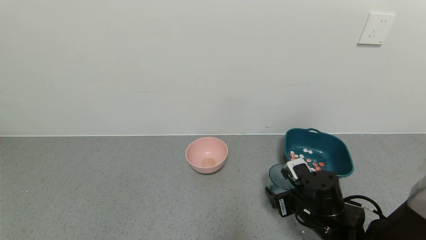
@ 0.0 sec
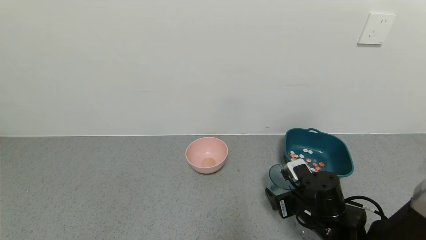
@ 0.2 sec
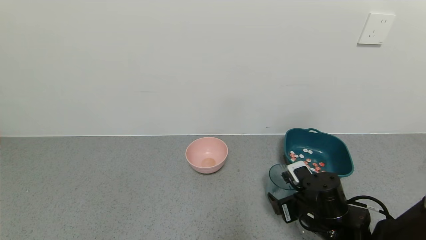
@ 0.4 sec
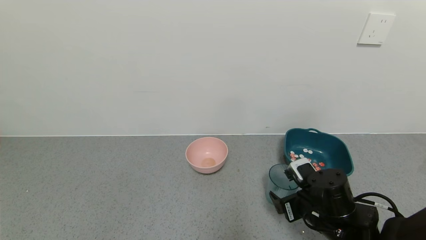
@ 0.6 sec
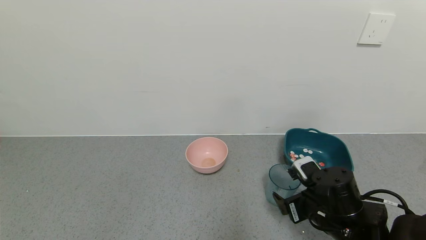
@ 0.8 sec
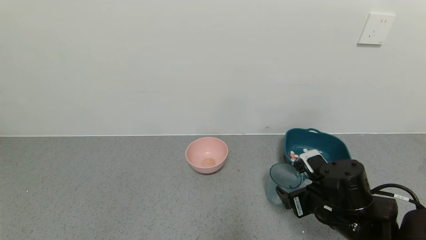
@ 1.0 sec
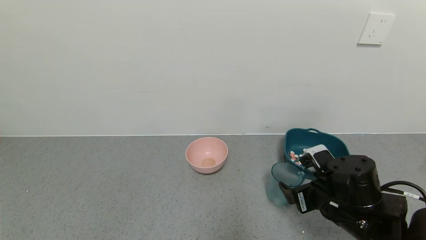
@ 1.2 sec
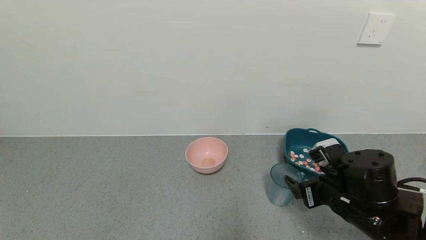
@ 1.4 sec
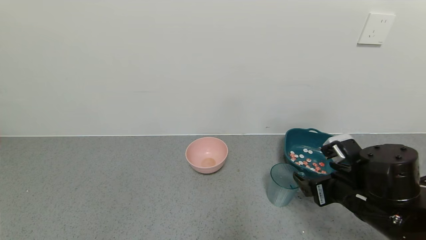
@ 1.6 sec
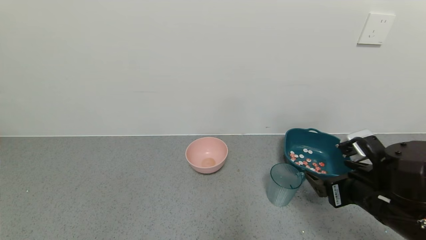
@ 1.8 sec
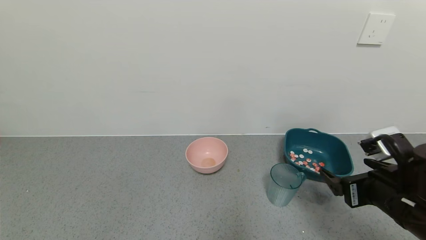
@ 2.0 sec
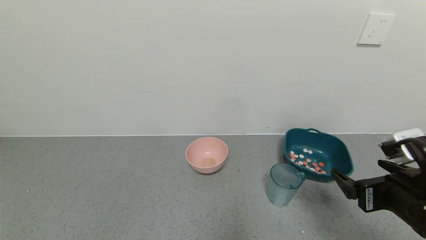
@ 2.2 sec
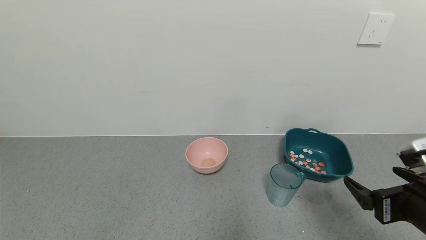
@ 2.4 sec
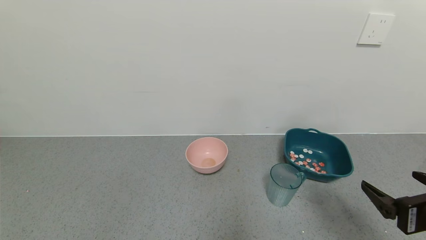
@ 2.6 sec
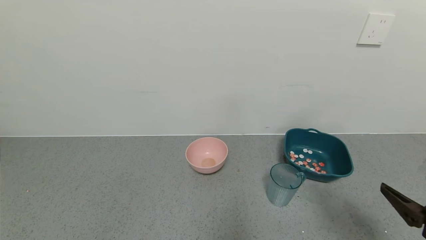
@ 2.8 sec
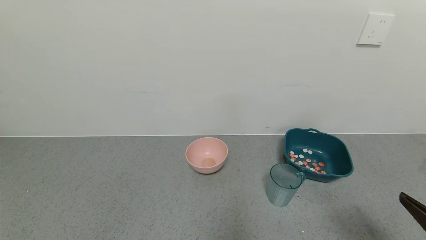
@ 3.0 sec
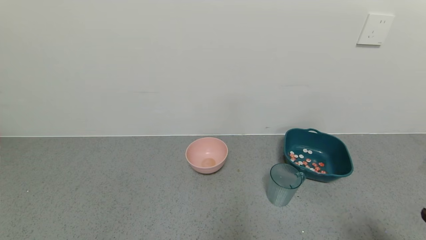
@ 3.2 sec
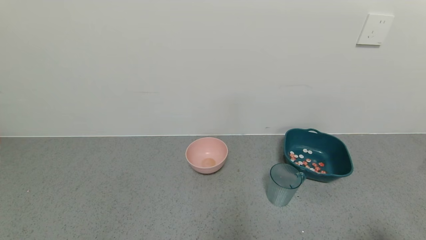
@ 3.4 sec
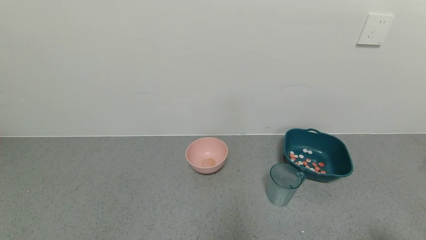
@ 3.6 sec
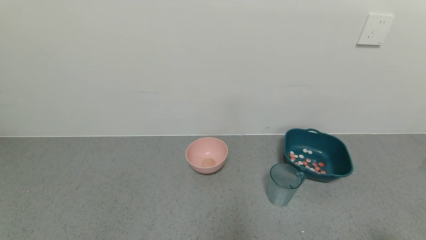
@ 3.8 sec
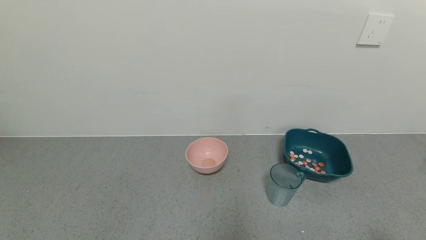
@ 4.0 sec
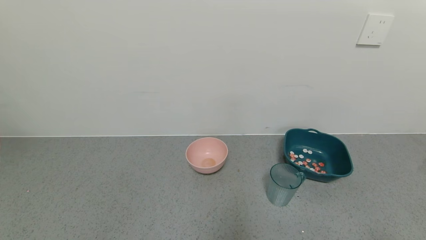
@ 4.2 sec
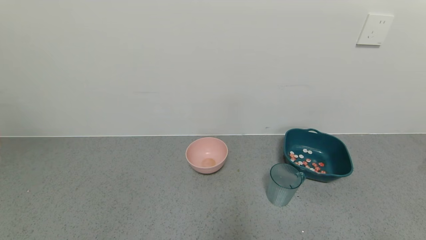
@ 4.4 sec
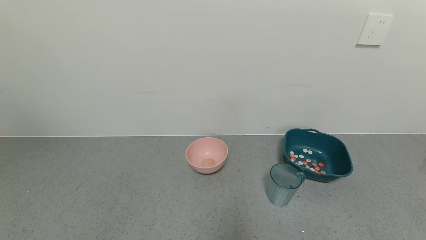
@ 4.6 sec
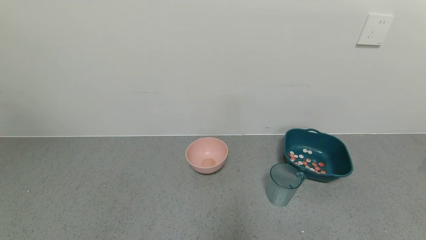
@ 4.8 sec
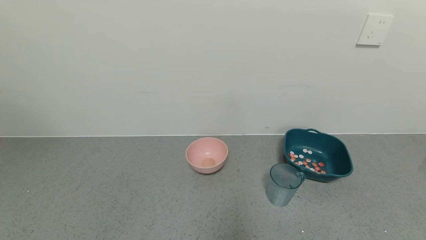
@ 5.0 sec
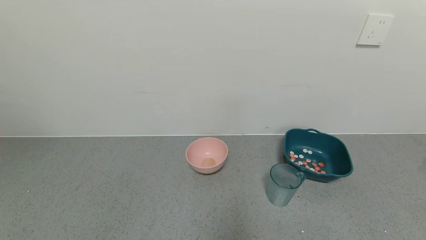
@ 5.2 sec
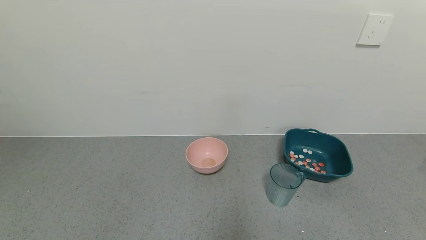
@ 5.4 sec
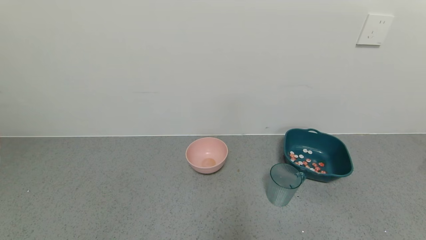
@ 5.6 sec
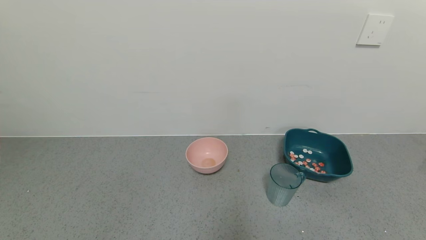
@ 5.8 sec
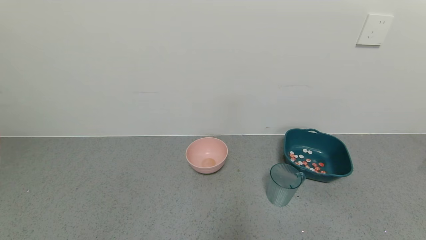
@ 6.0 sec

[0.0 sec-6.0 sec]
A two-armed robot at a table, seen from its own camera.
Task of the whole recording: use a gripper to pick up the cup and pour the solid into a bowl or tray.
0.0 sec to 1.6 sec: The right gripper goes some 10 cm upward.
1.6 sec to 3.0 sec: The right gripper travels backward and to the right by some 15 cm.
3.0 sec to 4.4 sec: The right gripper goes some 10 cm backward.

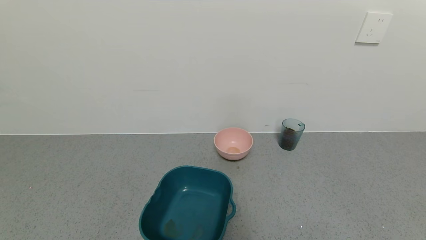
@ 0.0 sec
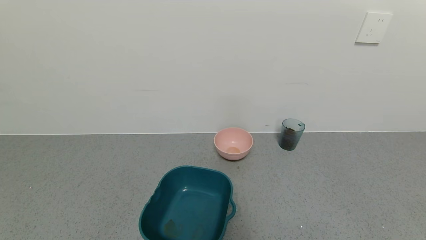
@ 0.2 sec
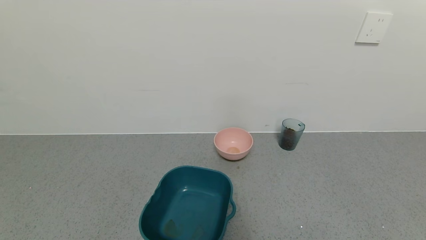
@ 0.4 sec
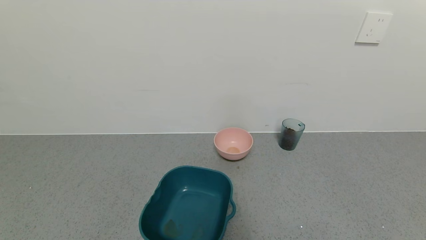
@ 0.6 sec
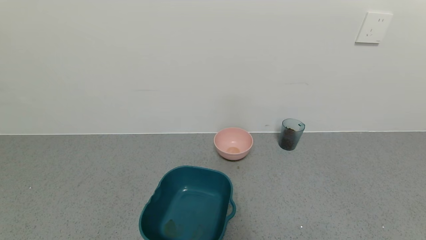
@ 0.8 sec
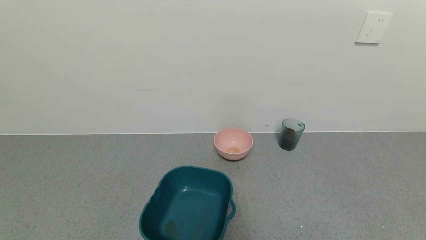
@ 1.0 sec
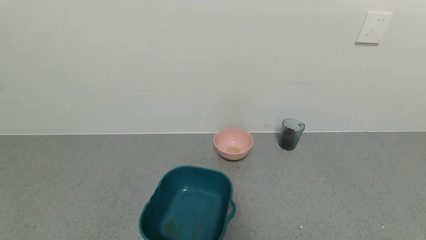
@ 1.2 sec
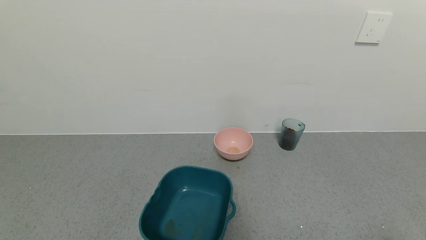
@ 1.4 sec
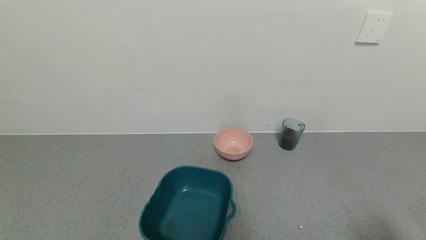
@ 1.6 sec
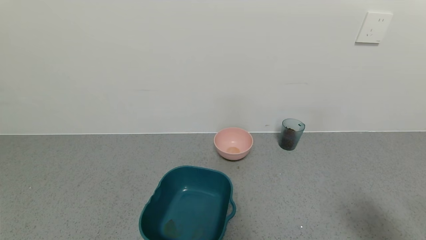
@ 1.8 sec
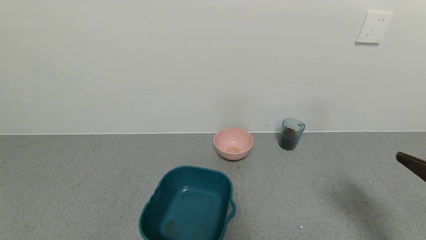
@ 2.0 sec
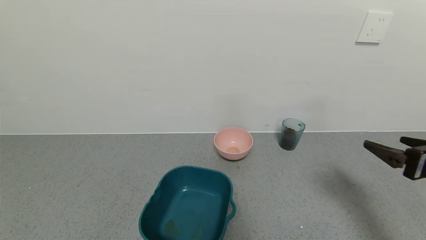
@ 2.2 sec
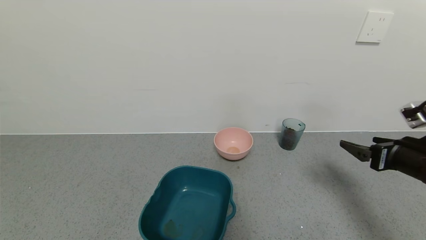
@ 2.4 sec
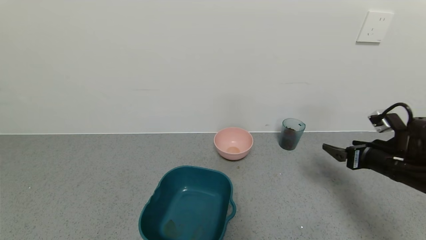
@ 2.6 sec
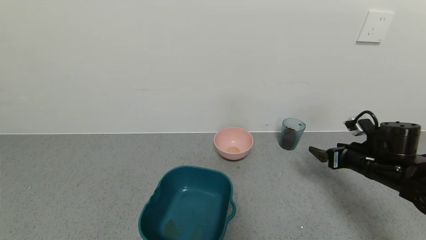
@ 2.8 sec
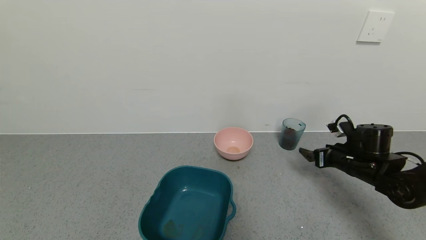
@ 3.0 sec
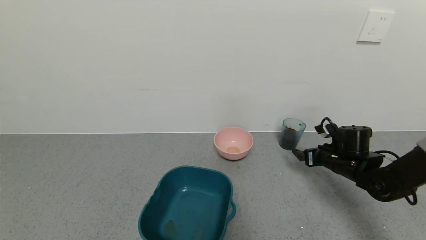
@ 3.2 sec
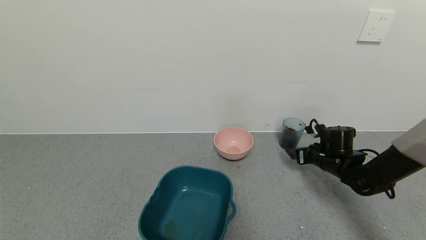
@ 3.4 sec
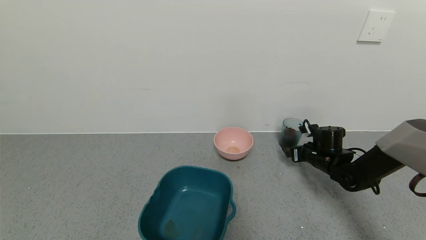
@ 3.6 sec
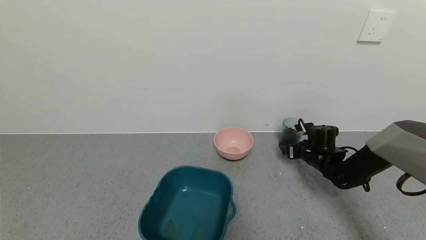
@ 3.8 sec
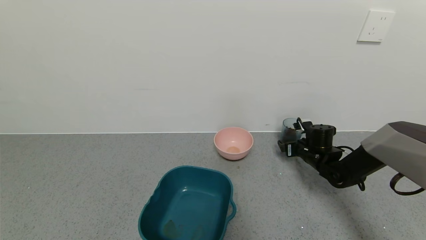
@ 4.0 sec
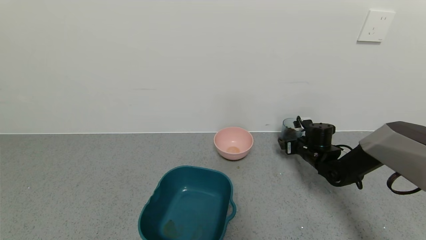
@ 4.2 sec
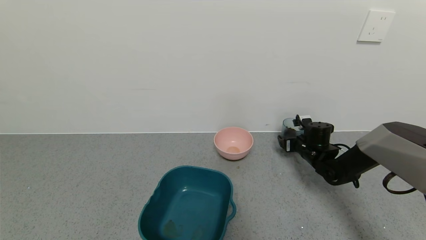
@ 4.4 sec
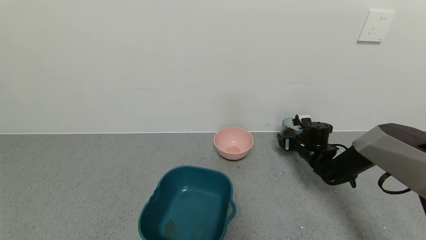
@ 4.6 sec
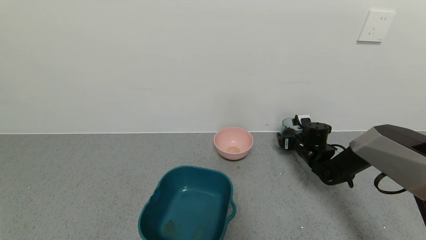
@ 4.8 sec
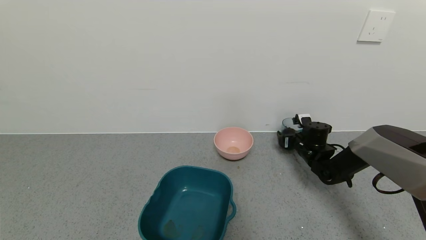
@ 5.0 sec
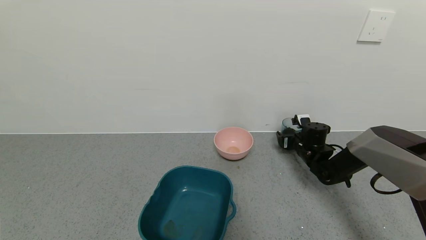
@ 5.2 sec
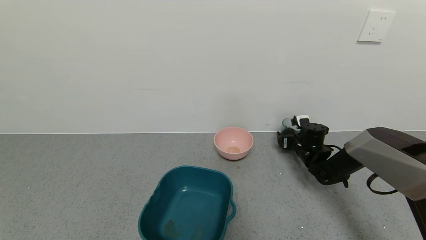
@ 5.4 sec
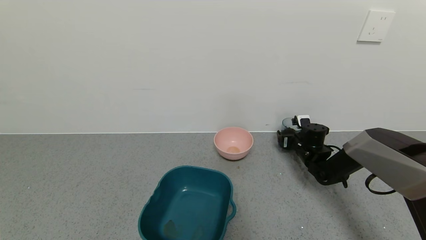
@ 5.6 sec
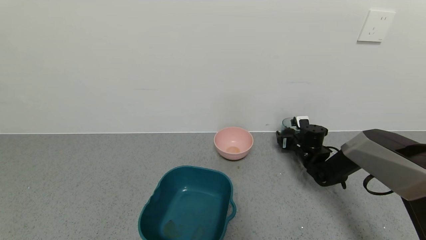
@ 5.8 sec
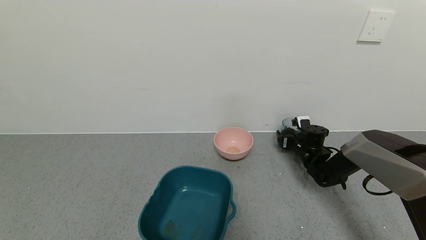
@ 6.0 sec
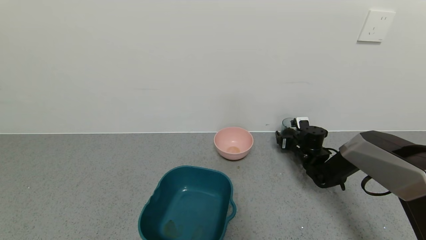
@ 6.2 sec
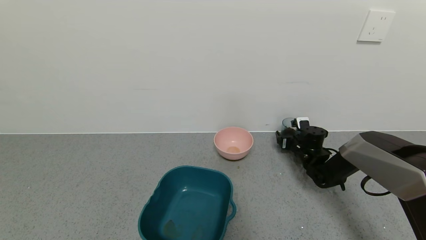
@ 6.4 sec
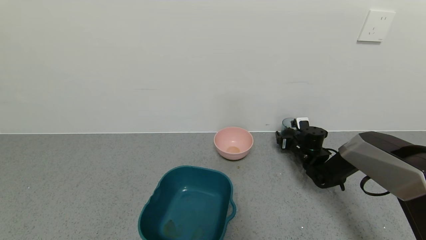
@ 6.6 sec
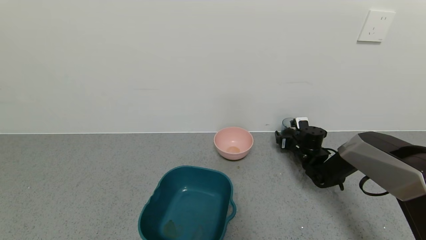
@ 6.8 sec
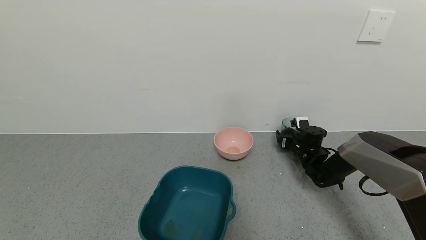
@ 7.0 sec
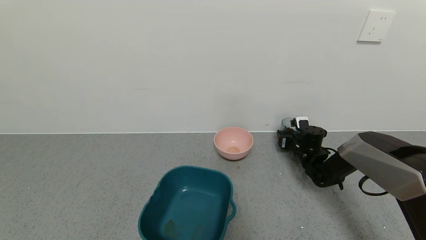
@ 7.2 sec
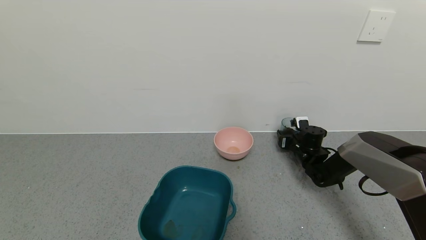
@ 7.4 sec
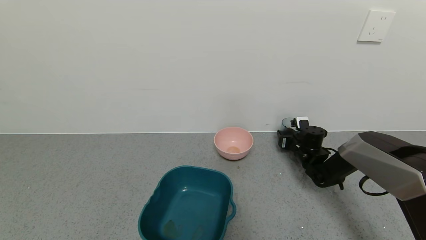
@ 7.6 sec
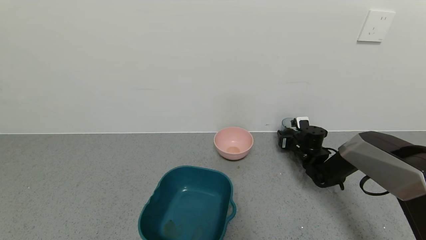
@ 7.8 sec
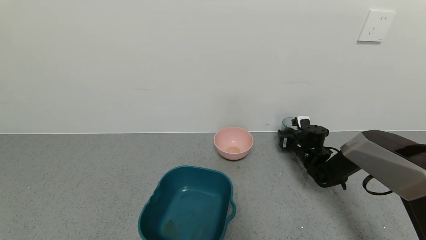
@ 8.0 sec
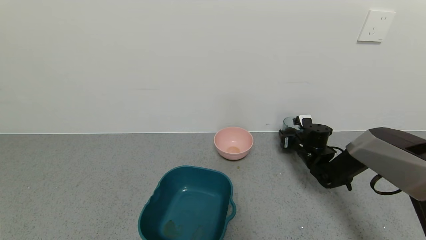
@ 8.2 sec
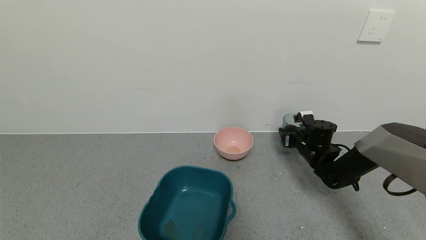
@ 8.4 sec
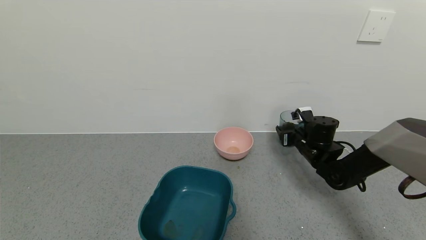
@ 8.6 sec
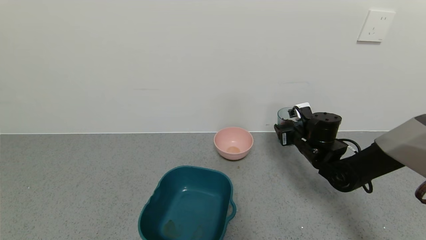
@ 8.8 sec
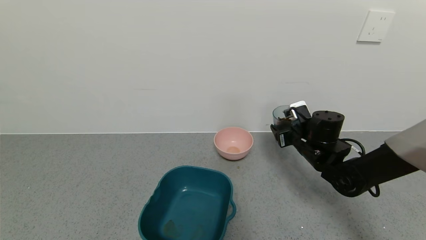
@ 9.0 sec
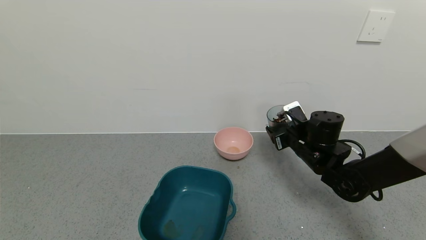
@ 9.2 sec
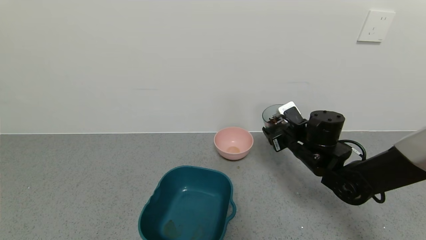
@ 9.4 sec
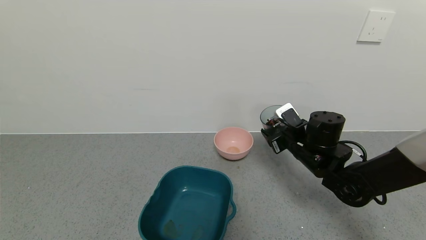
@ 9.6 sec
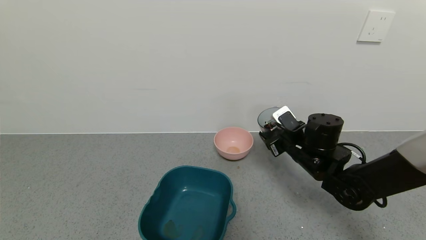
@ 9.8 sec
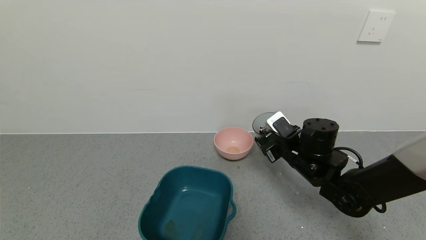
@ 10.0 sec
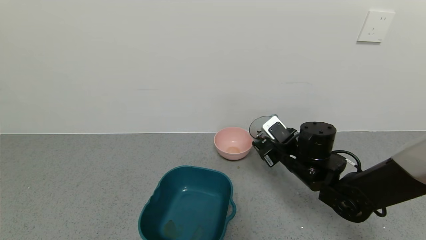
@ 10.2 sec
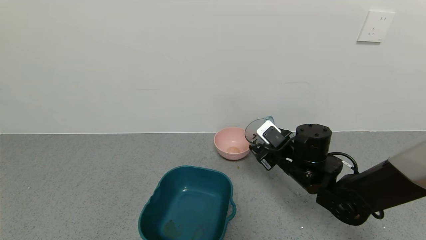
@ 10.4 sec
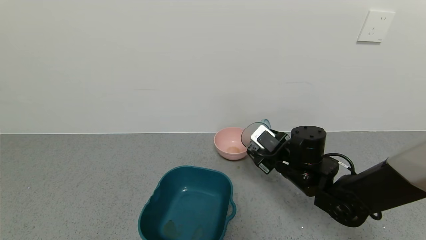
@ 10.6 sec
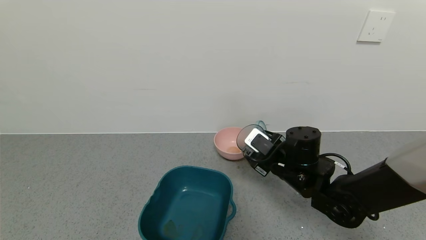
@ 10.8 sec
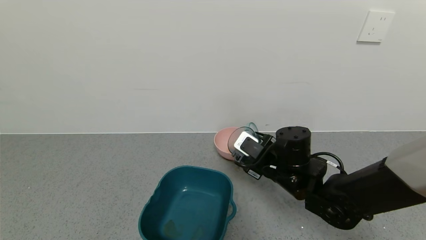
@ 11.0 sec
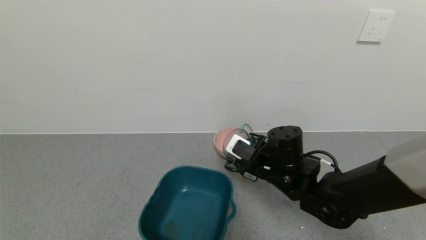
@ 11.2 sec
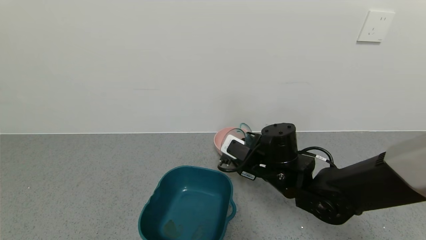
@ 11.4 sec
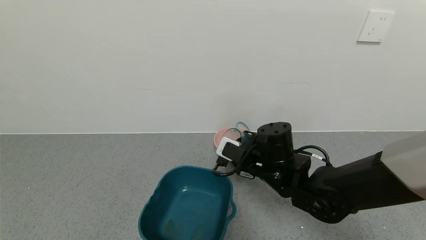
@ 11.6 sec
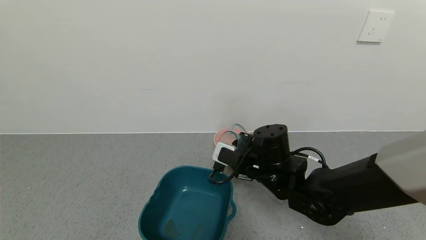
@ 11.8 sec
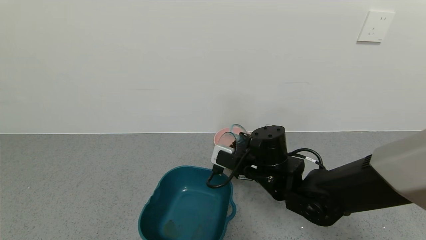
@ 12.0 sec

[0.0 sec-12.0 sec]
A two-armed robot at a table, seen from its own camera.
Task of the whole recording: use a gripper to pick up the cup and pour the solid into a bowl or tray.
Step, 0.0 sec to 7.8 sec: Grasp the glass of coffee beans with the right gripper.
1.6 sec to 3.0 sec: The right gripper moves forward, about 30 cm.
3.0 sec to 4.4 sec: The right gripper goes about 10 cm forward.
4.4 sec to 6.0 sec: The grippers make only small movements.
6.0 sec to 7.6 sec: The right gripper closes its fingers.
7.6 sec to 9.0 sec: The right gripper heads backward and upward, covering roughly 15 cm.
9.0 sec to 10.4 sec: The right gripper travels to the left and backward by approximately 5 cm.
10.4 sec to 12.0 sec: The right gripper heads to the left, covering approximately 5 cm.
